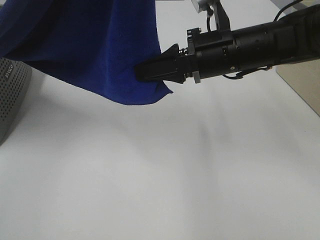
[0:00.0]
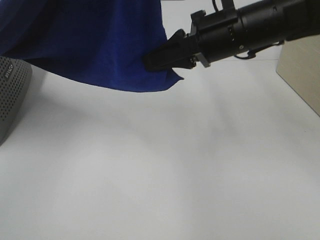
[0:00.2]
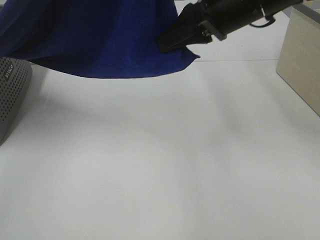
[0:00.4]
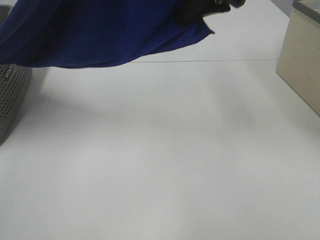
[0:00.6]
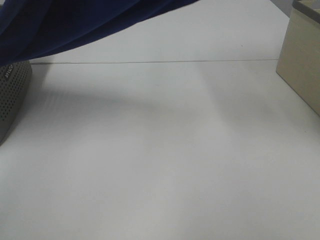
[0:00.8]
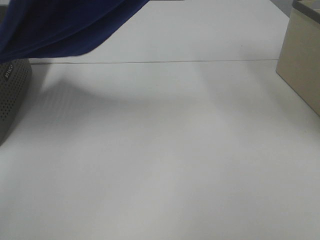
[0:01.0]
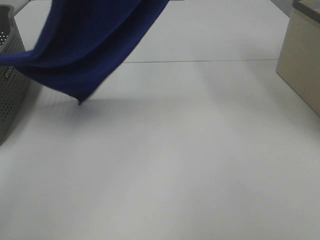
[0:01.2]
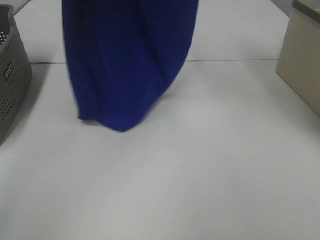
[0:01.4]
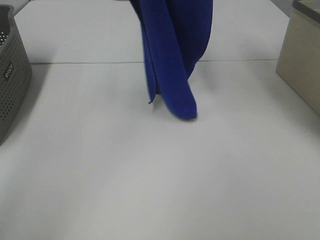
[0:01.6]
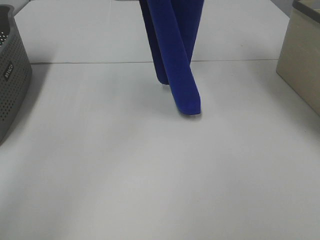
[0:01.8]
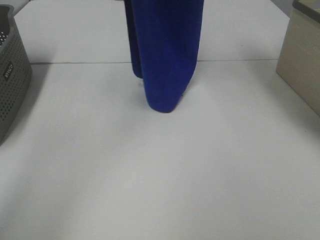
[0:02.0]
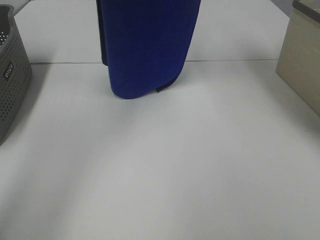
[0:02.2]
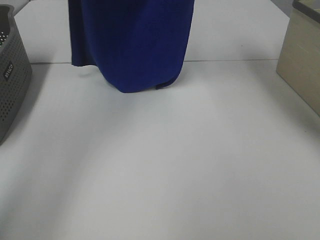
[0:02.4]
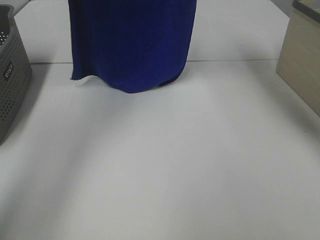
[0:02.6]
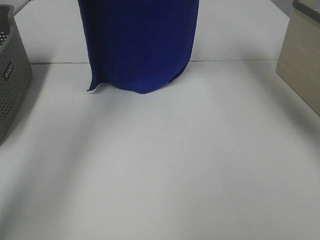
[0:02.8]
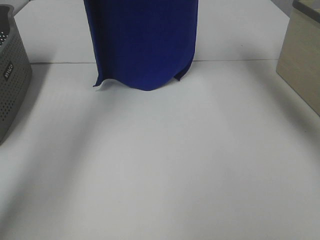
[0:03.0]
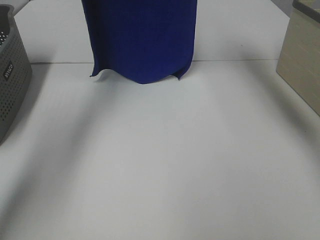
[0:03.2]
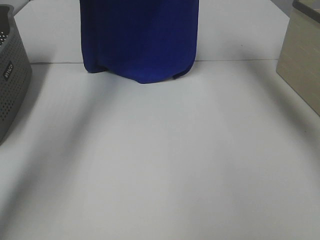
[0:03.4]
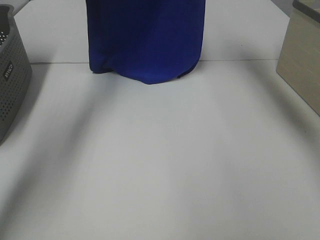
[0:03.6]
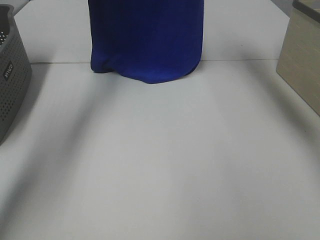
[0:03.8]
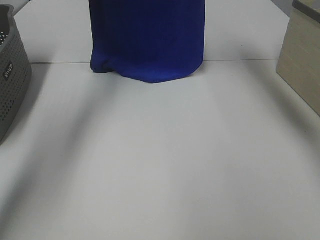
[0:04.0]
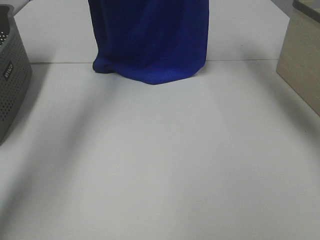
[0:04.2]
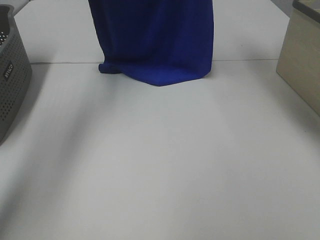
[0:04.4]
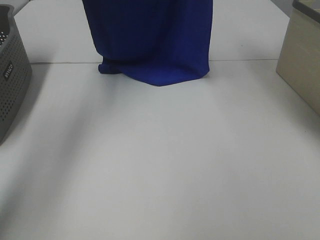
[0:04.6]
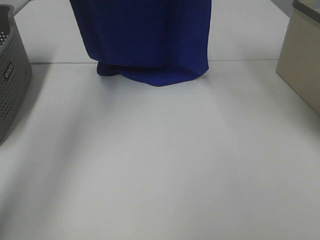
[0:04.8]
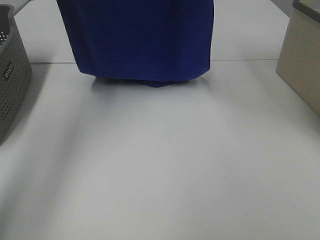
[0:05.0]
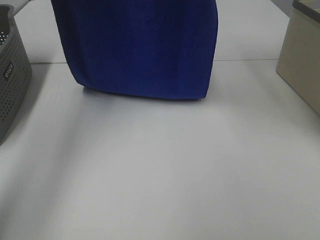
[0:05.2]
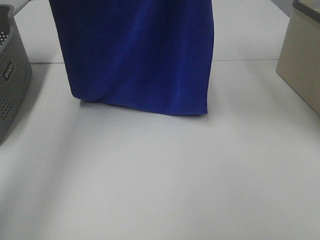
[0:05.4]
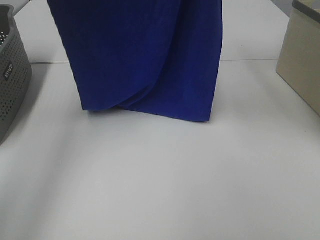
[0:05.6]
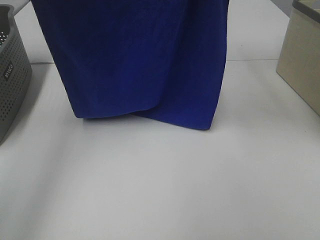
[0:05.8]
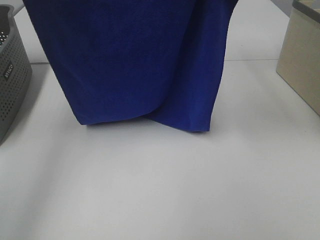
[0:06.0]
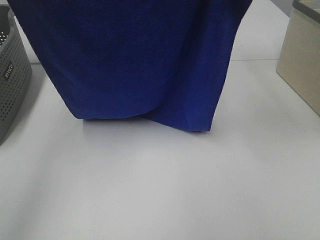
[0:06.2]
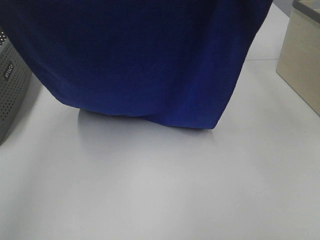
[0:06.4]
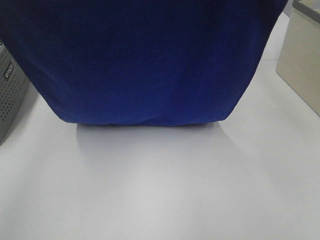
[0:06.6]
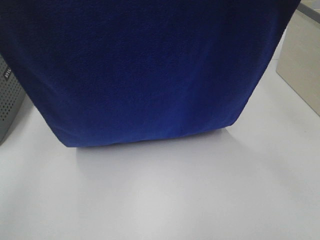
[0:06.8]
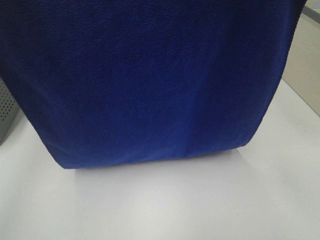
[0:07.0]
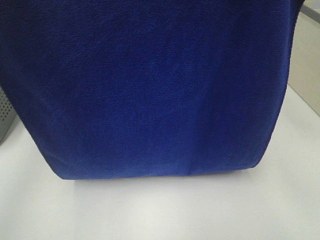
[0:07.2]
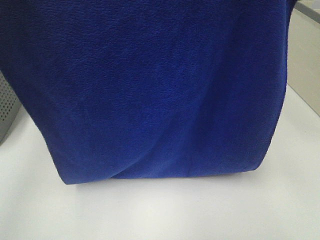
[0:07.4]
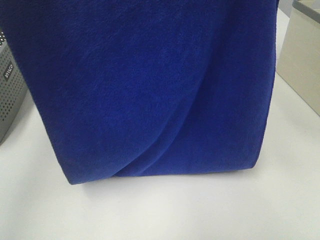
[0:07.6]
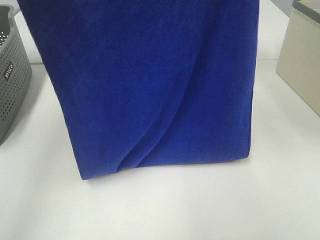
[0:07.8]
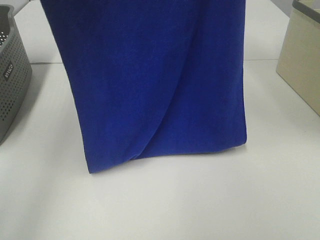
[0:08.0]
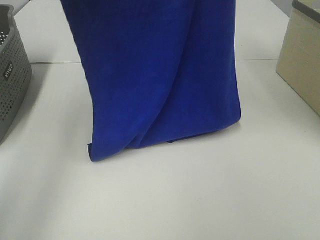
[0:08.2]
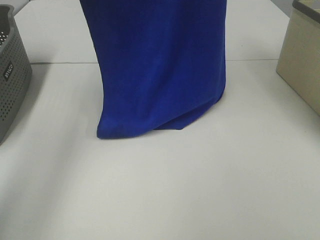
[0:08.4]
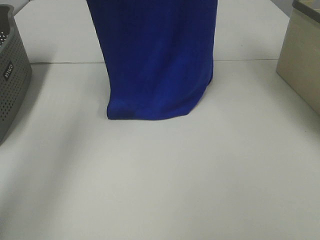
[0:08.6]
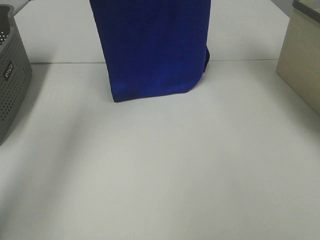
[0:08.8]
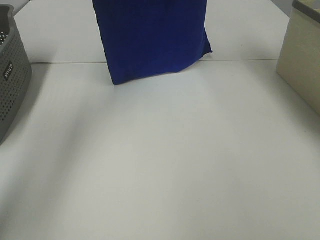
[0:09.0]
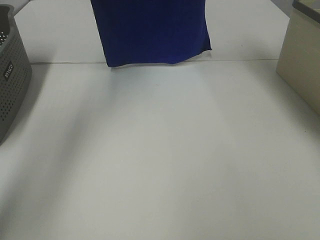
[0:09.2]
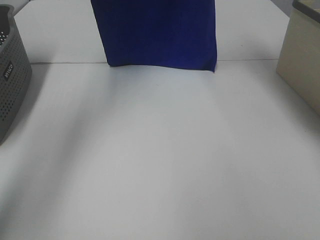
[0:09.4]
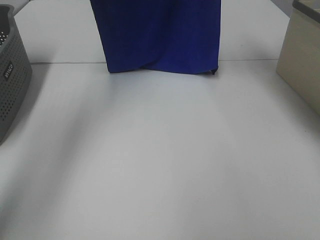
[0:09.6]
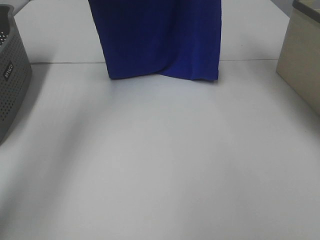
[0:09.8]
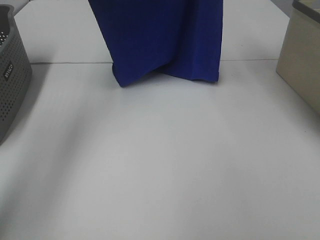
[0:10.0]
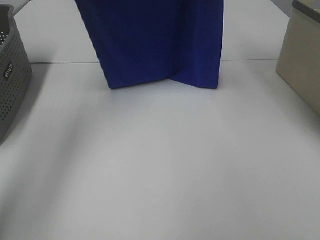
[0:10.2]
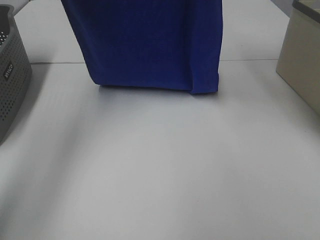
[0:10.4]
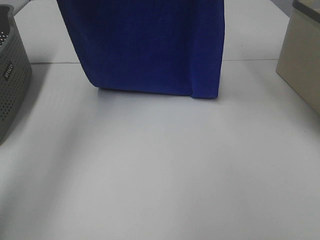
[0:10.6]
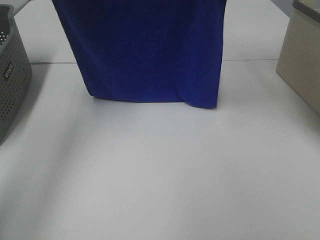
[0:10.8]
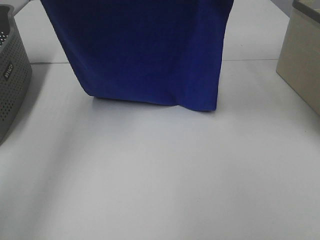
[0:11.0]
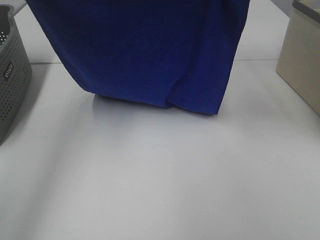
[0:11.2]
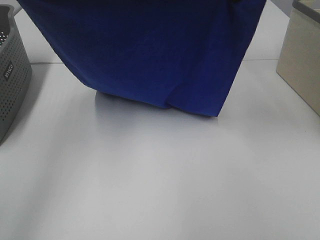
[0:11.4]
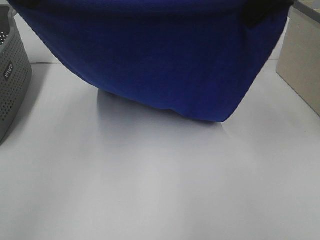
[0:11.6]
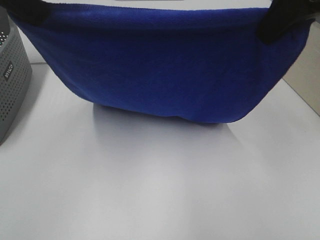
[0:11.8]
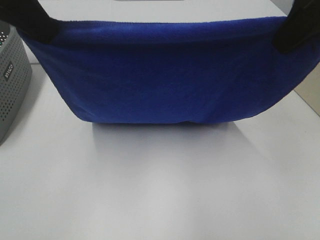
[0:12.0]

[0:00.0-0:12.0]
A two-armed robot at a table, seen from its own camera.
Task of the whole recording: Remove the towel and place it.
Step, 2.0 to 10.2 s: Left hand: spread the blue towel flat on the table.
Step, 2.0 to 10.2 s: Right hand: spread the blue towel flat on the table.
0.0 to 1.6 s: The left gripper moves forward, approximately 15 cm. Meanwhile the right gripper is displaced upward and forward by approximately 25 cm.
1.6 to 3.0 s: The left gripper heads forward, covering roughly 10 cm, while the right gripper is displaced forward by some 5 cm.
4.4 to 6.0 s: The two grippers go about 15 cm backward.
6.0 to 7.6 s: The grippers both shift backward by roughly 10 cm.
7.6 to 9.0 s: Both grippers move forward, about 25 cm.
9.0 to 10.4 s: The right gripper goes some 5 cm backward, while the left gripper moves about 5 cm.
10.4 to 12.0 s: Both grippers move backward and downward, about 20 cm.

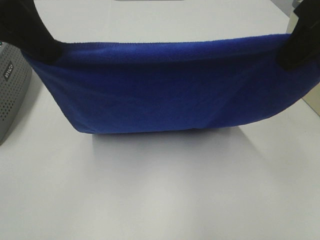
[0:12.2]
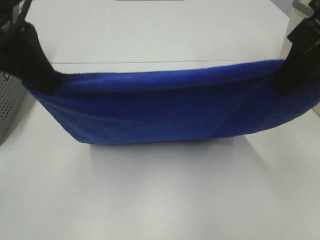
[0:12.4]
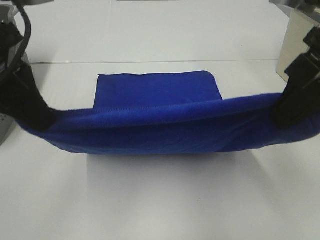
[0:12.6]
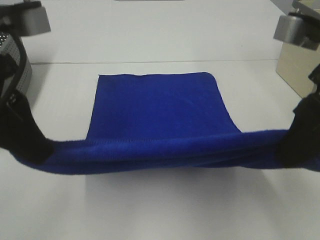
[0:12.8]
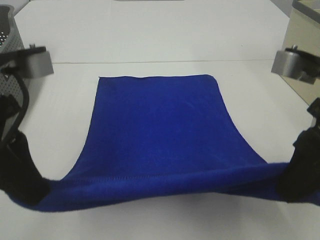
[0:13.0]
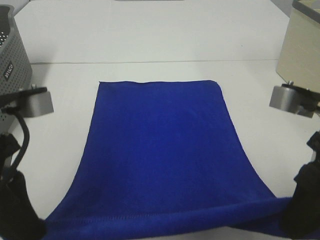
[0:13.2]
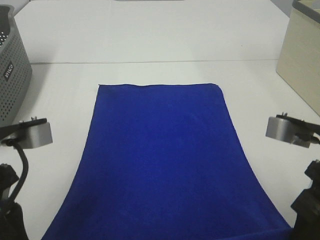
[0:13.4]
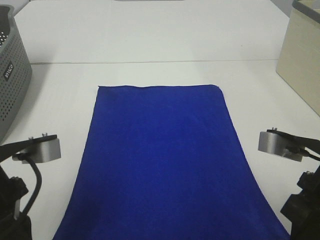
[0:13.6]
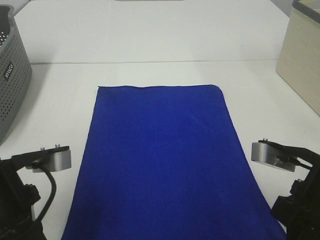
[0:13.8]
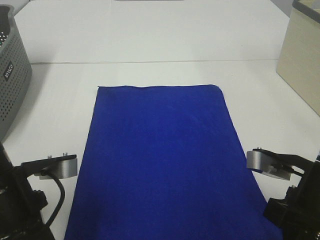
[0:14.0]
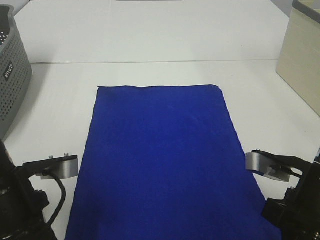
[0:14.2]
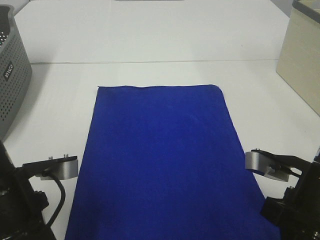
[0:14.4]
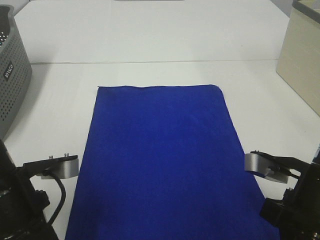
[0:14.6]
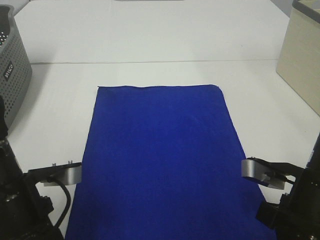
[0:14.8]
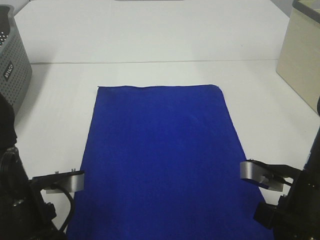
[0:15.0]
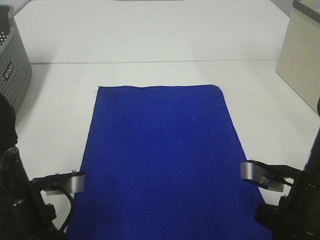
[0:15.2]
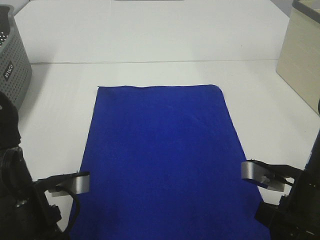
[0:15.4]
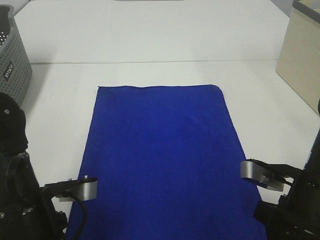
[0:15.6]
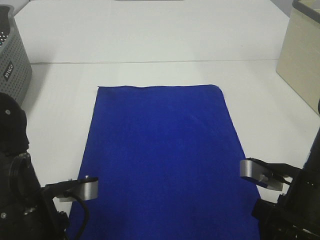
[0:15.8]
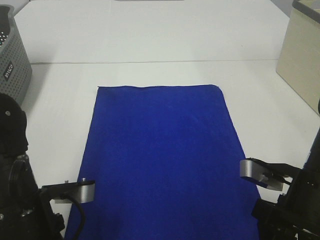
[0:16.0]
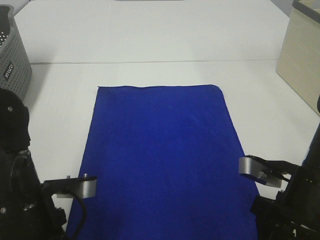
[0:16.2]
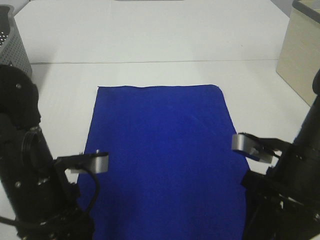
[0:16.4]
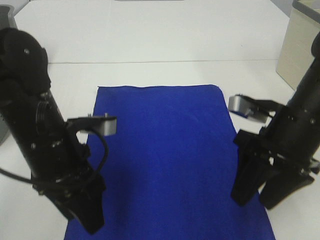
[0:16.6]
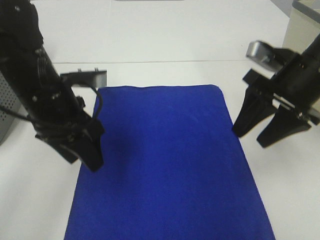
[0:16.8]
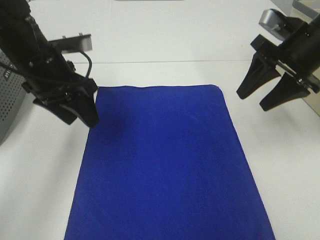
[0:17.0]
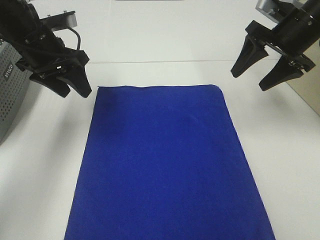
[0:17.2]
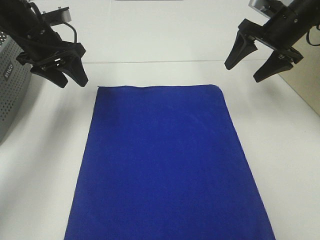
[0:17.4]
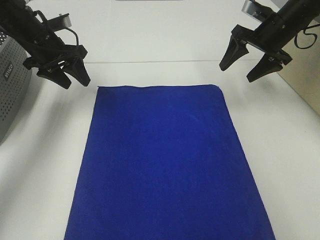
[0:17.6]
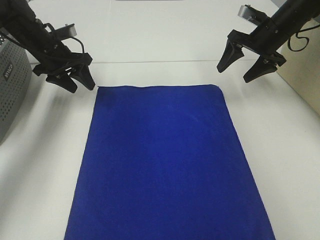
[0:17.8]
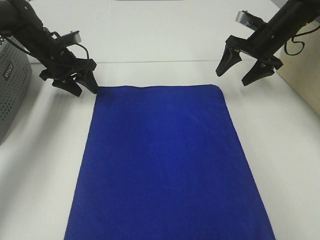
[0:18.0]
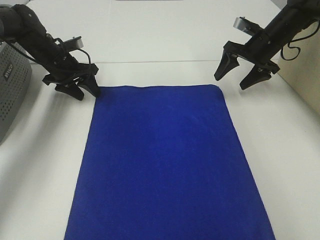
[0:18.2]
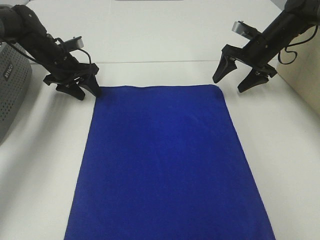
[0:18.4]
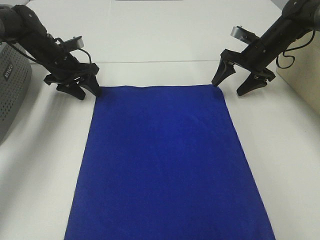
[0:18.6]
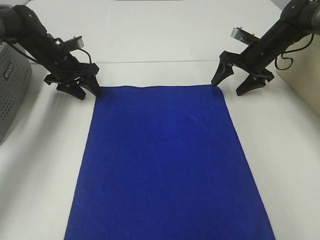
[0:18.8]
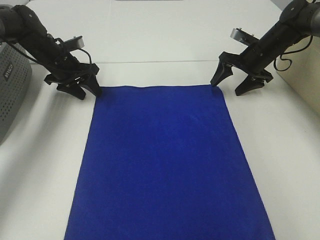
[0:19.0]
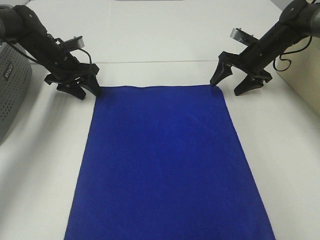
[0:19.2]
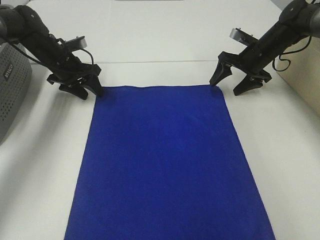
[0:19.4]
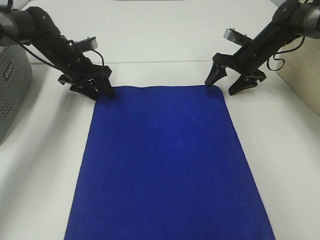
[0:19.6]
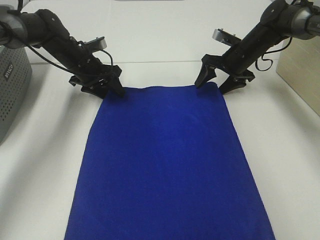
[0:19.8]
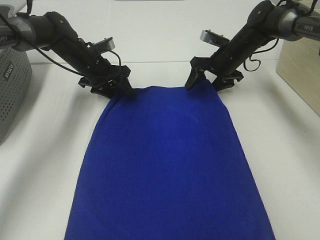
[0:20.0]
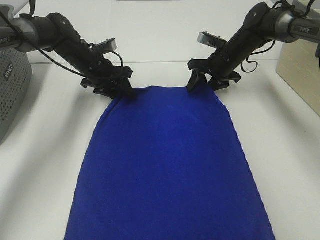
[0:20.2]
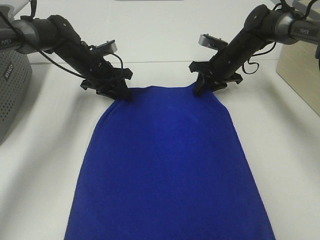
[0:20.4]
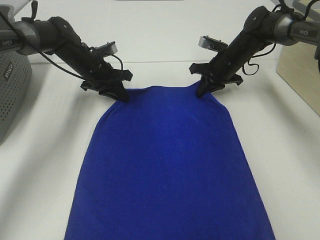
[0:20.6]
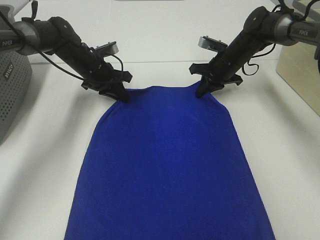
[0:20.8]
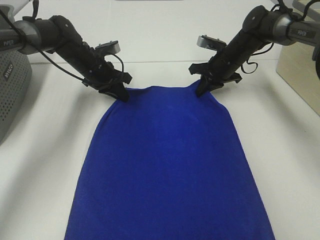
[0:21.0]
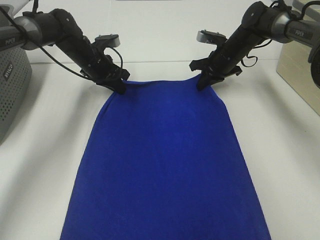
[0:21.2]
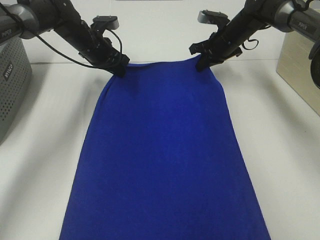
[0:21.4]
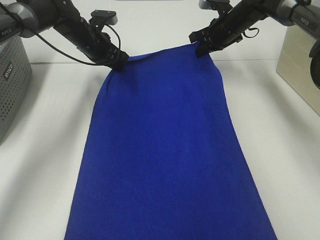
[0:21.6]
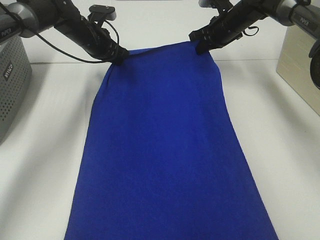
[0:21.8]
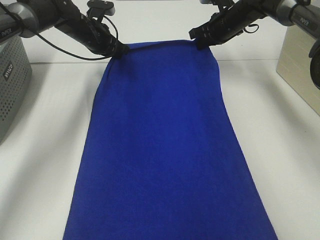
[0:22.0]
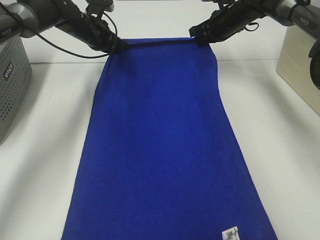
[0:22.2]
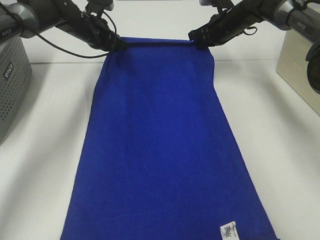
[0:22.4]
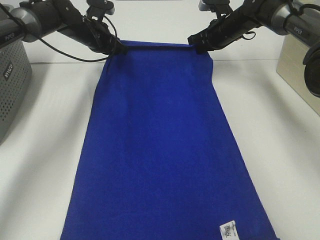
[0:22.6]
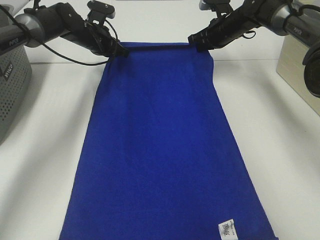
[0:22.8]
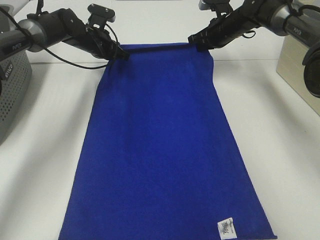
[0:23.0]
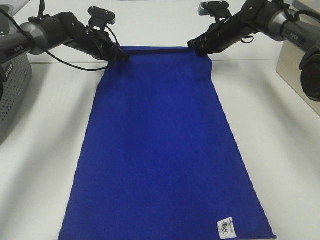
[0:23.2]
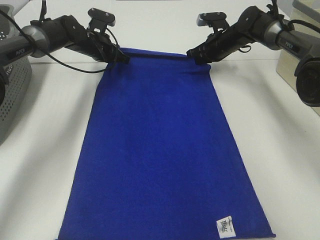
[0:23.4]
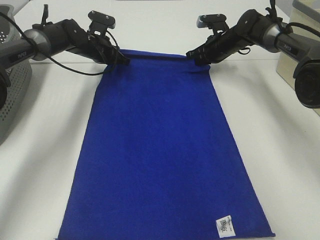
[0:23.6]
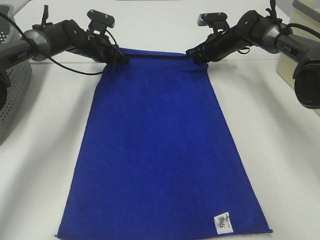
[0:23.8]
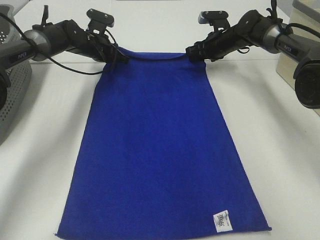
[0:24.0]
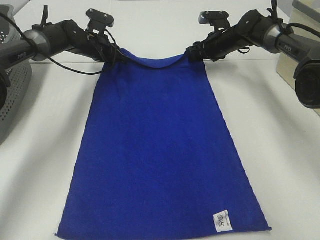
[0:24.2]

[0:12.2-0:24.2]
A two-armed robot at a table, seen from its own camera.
Task of the whole recording: Remove the towel and place it.
Step, 12.2 to 18.0 s: Left hand:adjust the blue towel.
Step, 12.2 to 18.0 s: Right hand:adjust the blue towel.
12.2 to 13.8 s: Both grippers travel together downward and backward, some 20 cm.
13.8 to 15.2 s: The grippers make only small movements.
15.2 to 16.6 s: The grippers both shift forward by some 5 cm. The left gripper opens its fingers. The right gripper opens.
16.6 to 18.2 s: Both grippers move forward, roughly 30 cm.
18.2 to 19.8 s: The right gripper shifts by about 5 cm. Meanwhile the left gripper goes some 5 cm to the right.
19.8 to 21.2 s: The right gripper closes up; the left gripper closes up.
21.2 to 22.6 s: The left gripper ends up approximately 5 cm from where it was; the right gripper moves approximately 5 cm.
22.6 to 24.2 s: The left gripper opens its fingers; the right gripper opens its fingers.
